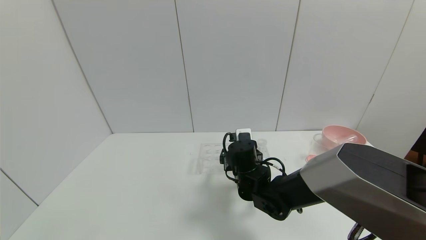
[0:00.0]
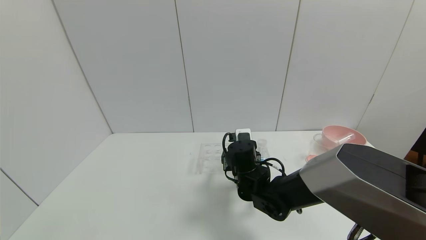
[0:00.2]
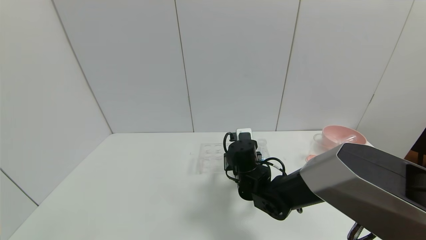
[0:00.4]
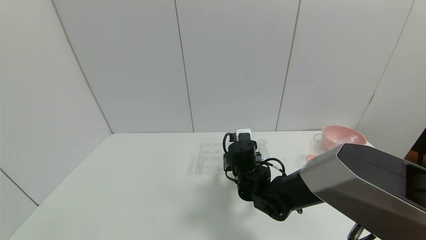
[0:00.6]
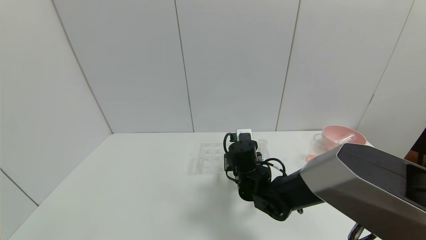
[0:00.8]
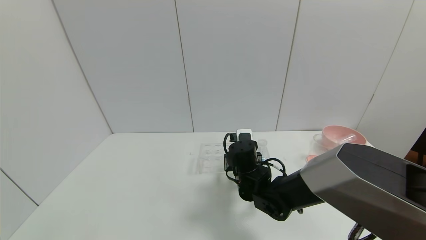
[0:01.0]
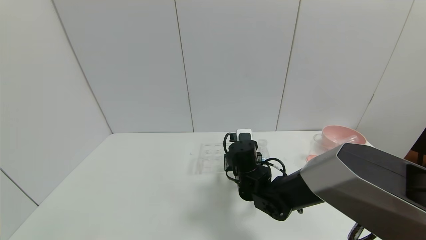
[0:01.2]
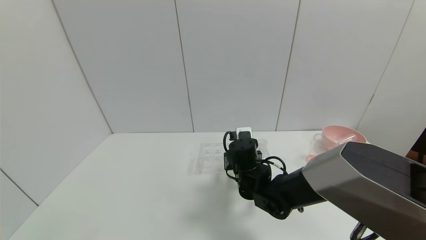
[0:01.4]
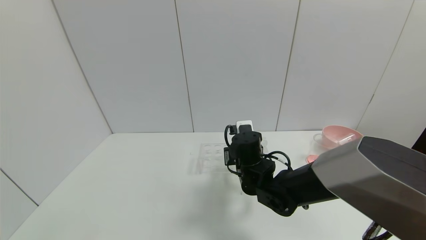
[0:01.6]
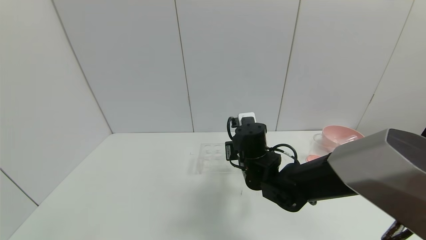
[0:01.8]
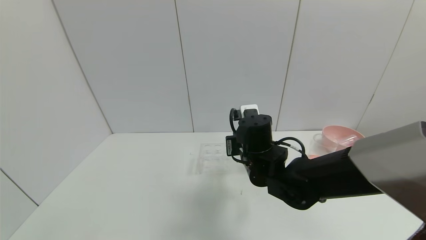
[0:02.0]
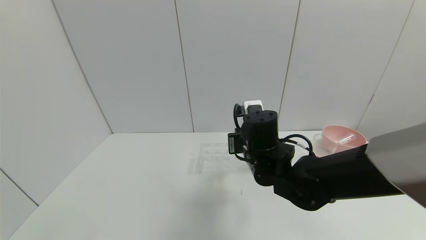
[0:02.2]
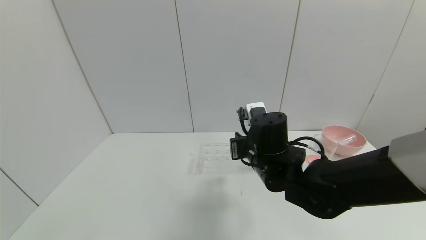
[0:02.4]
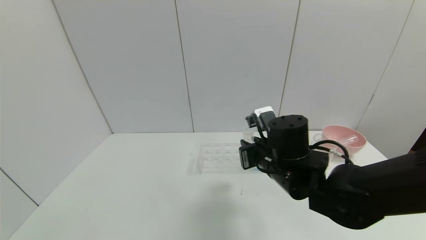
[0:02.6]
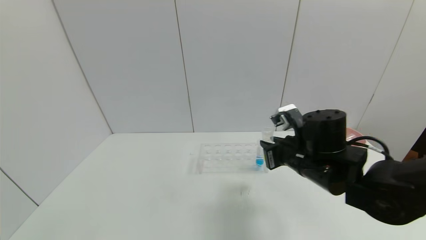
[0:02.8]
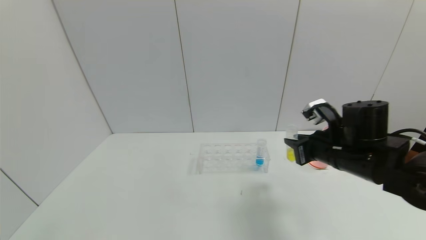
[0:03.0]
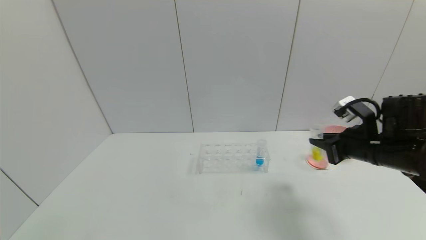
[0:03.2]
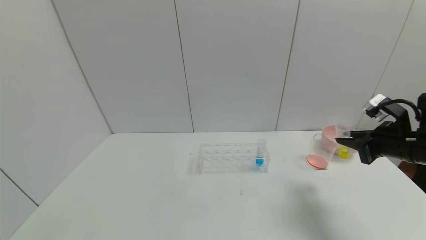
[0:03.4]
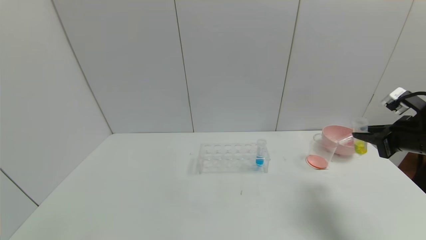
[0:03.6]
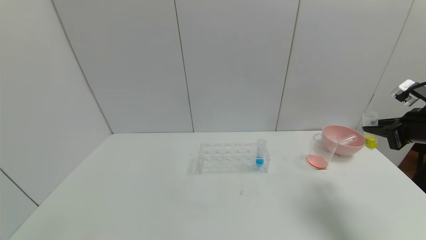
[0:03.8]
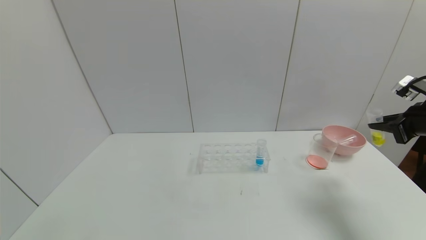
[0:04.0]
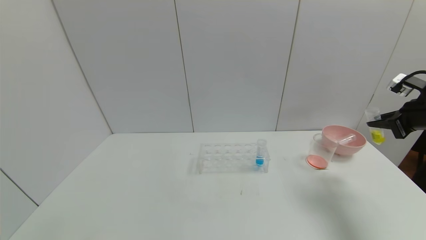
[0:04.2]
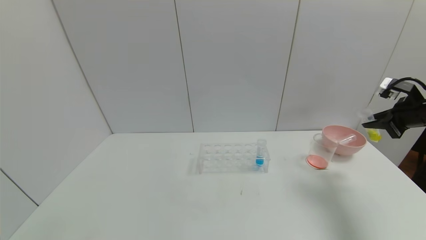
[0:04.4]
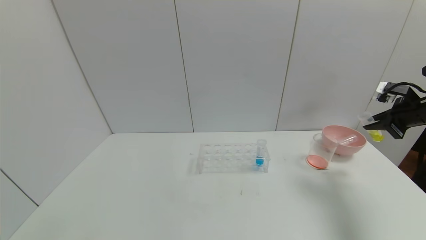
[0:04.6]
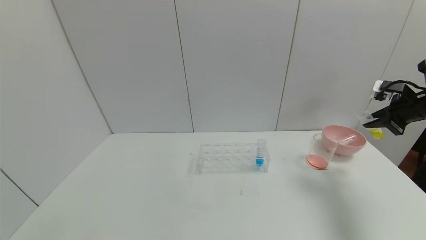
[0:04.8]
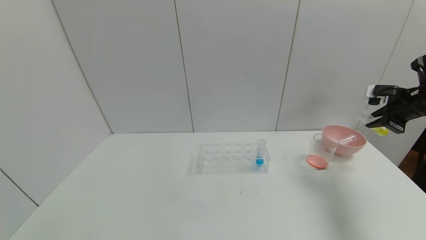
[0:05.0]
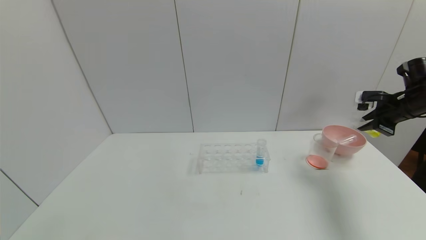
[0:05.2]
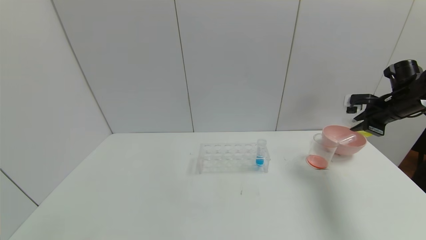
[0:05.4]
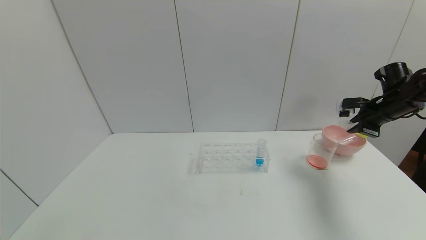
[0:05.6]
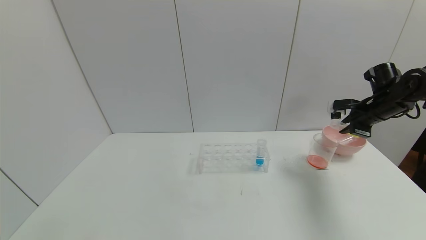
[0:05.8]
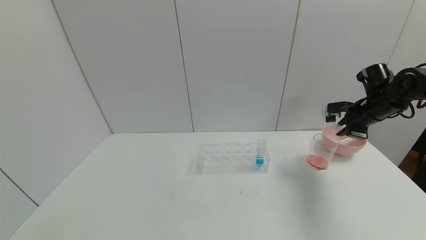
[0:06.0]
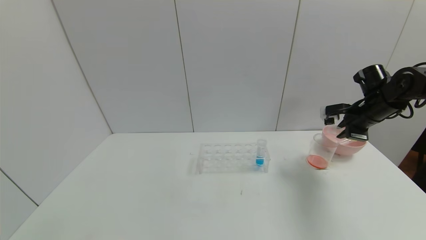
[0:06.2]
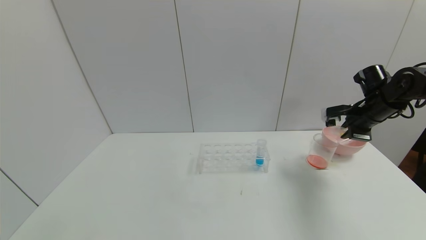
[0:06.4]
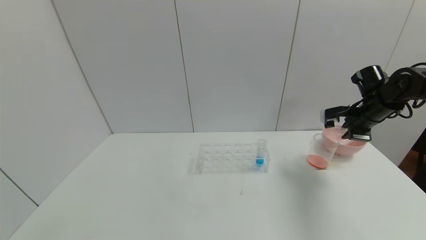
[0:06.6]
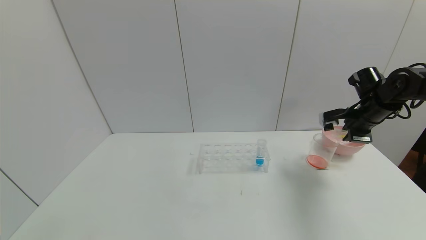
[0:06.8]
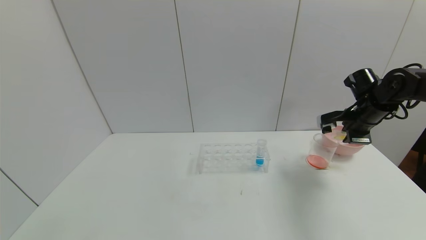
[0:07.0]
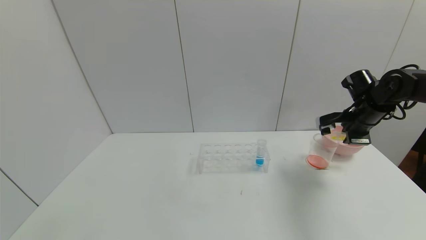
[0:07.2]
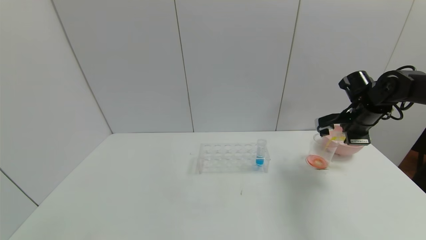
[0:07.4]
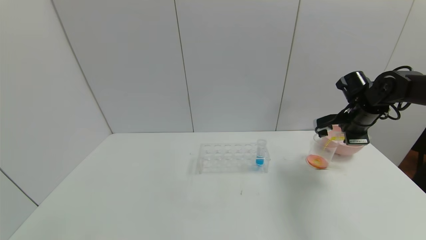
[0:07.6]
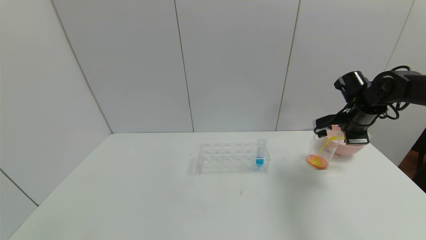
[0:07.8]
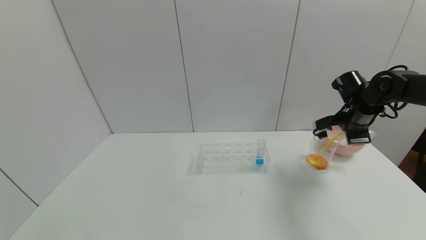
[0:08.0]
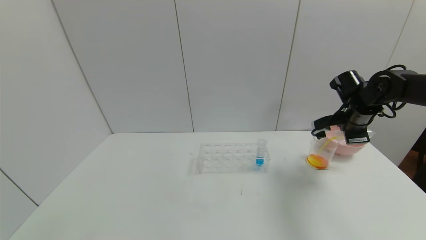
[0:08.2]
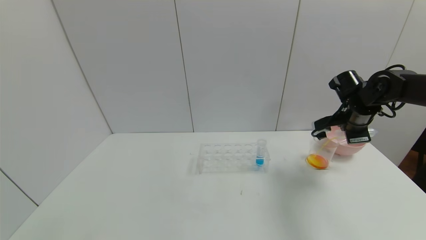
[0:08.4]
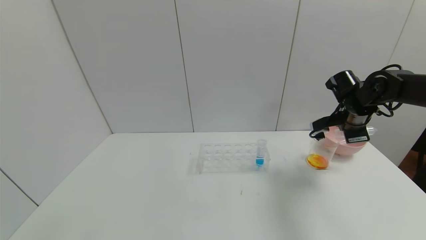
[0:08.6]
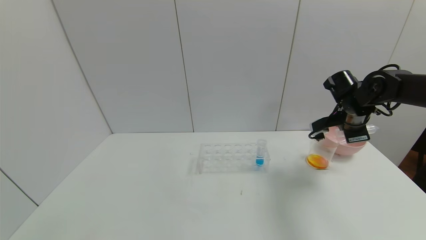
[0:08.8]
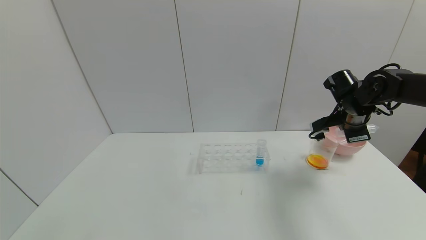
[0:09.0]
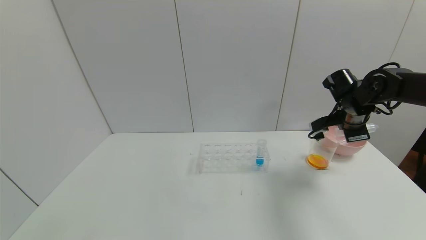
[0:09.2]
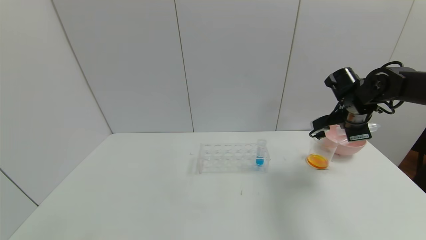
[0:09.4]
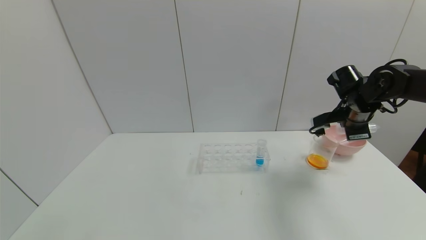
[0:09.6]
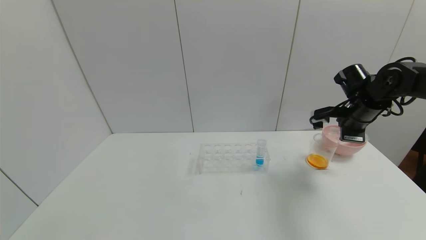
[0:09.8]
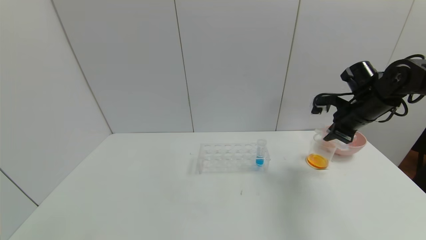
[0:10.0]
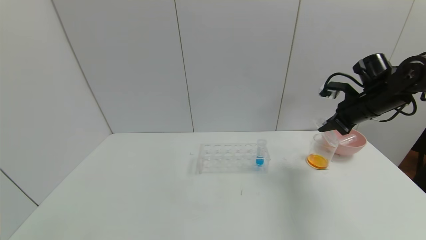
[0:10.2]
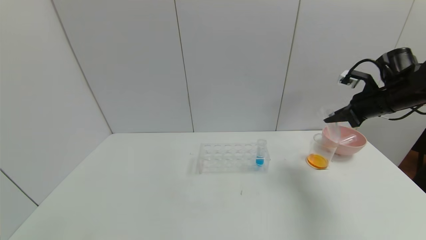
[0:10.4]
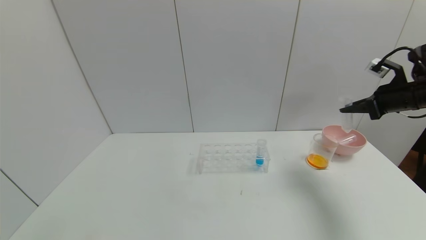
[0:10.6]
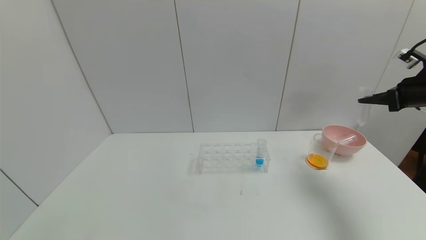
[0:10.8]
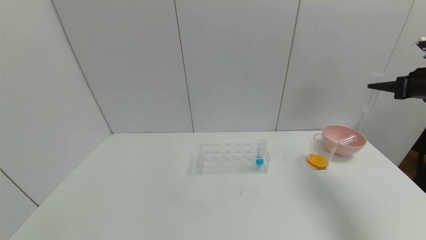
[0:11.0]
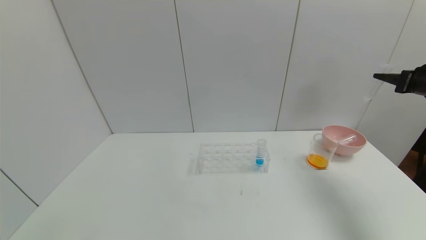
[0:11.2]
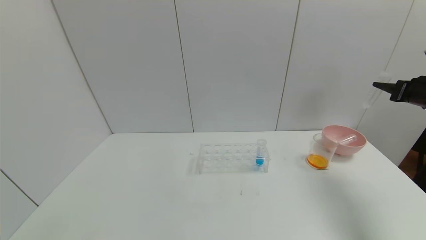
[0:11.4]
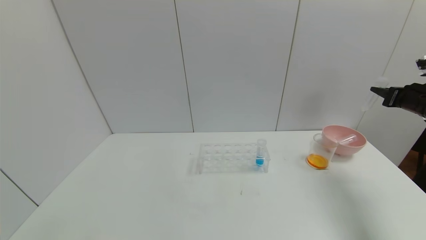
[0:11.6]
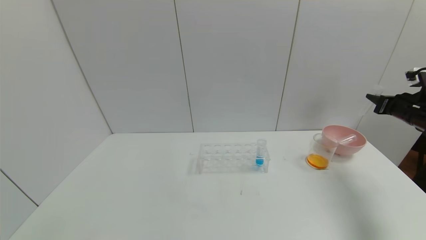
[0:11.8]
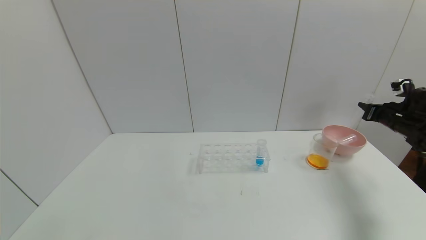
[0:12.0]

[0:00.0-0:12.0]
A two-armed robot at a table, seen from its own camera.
Task of the whole recording: pick up the test tube with yellow pigment and the test tube with red pigment by grippers and pour them into the beaker.
Step, 0:00.8 to 0:08.6: Pour the yellow reagent into the graduated cylinder with the right gripper.
0:00.0 to 0:01.6: The right gripper closes its fingers.
0:01.6 to 0:03.0: The right gripper moves to the right and upward, roughly 20 cm.
0:03.0 to 0:04.4: The right gripper shifts some 20 cm to the right.
0:04.4 to 0:06.0: The right gripper heads forward and to the left, covering approximately 10 cm.
0:07.6 to 0:09.0: The grippers stay close to where they were, moving slightly.
0:09.0 to 0:10.4: The right gripper travels to the right by some 5 cm.
0:10.4 to 0:12.0: The right gripper moves to the right and downward, about 15 cm.

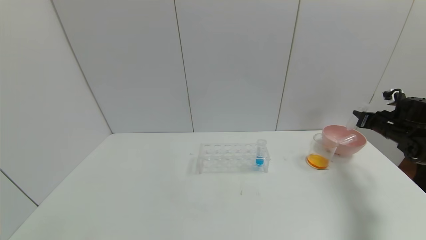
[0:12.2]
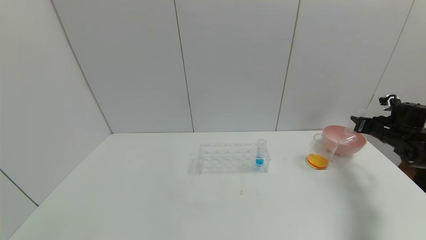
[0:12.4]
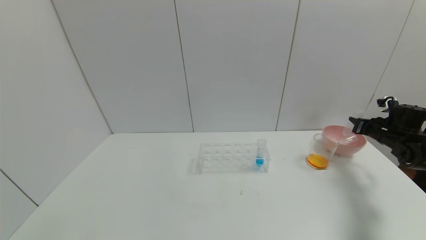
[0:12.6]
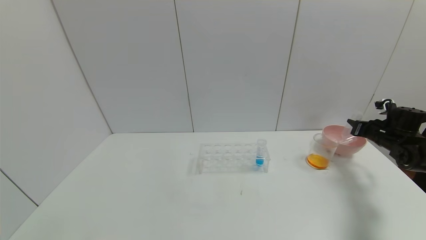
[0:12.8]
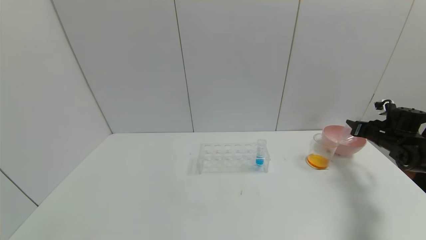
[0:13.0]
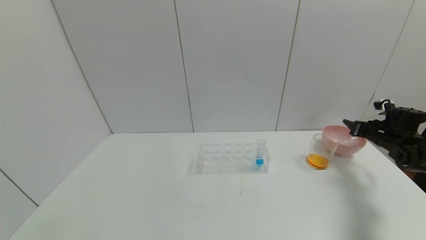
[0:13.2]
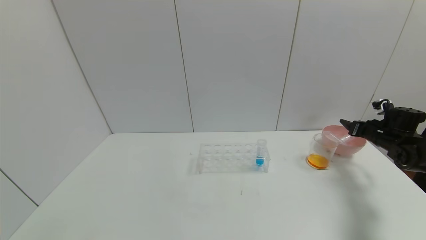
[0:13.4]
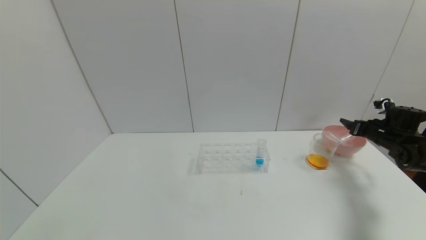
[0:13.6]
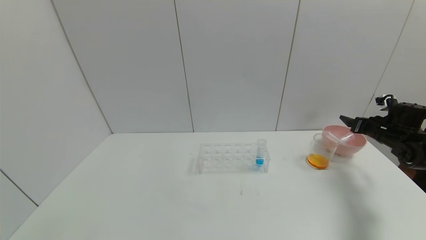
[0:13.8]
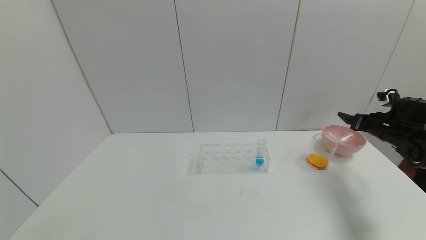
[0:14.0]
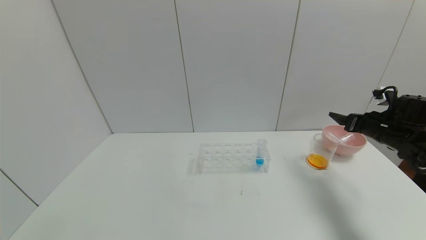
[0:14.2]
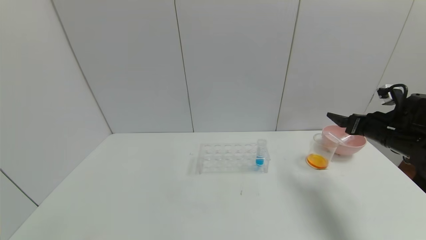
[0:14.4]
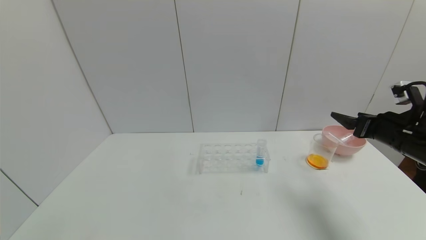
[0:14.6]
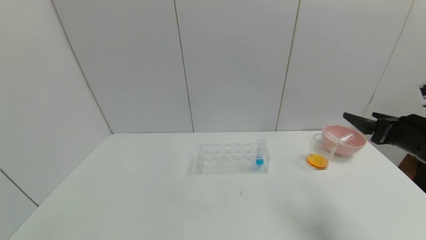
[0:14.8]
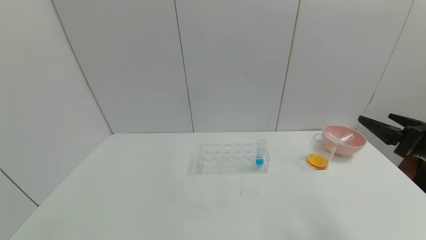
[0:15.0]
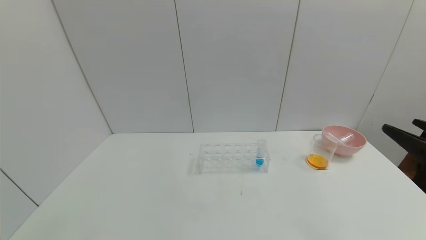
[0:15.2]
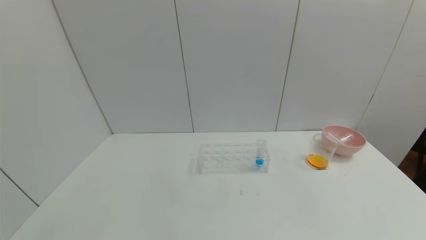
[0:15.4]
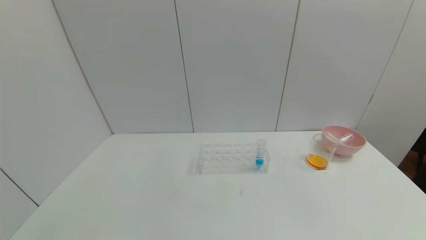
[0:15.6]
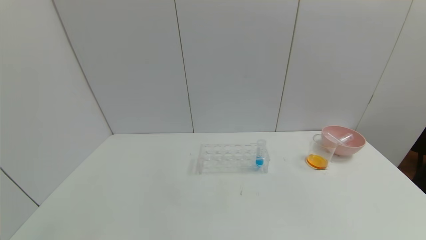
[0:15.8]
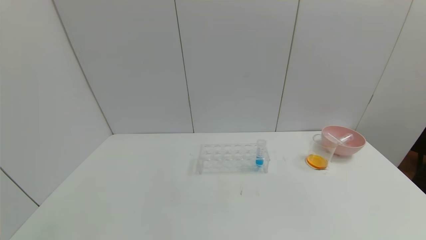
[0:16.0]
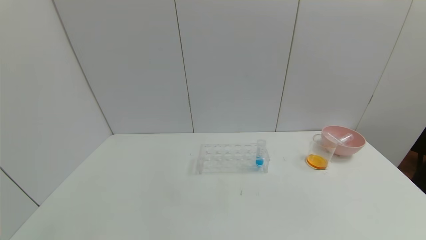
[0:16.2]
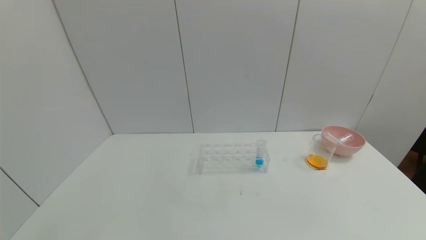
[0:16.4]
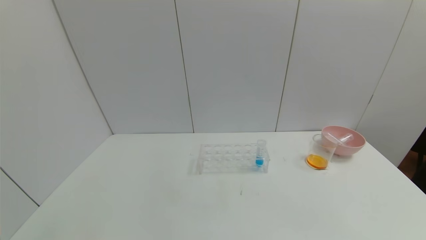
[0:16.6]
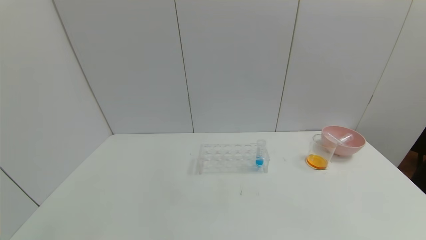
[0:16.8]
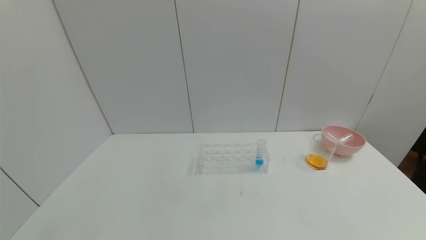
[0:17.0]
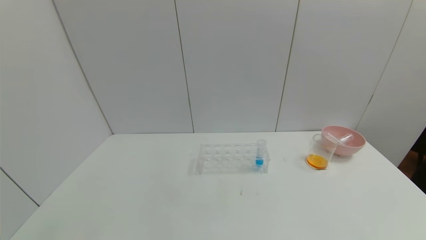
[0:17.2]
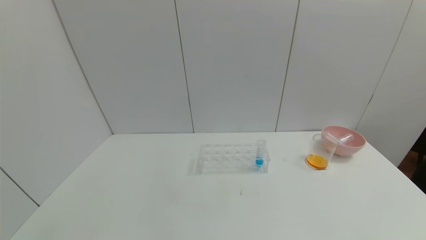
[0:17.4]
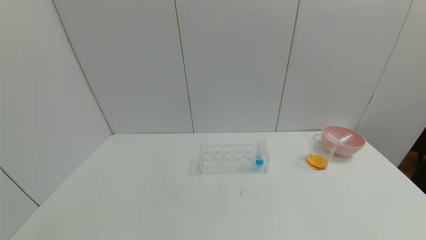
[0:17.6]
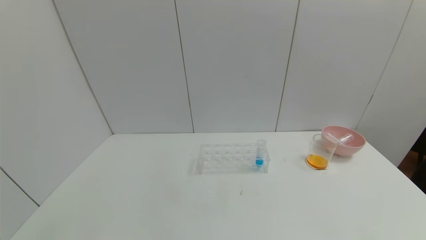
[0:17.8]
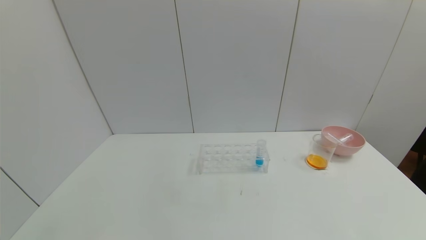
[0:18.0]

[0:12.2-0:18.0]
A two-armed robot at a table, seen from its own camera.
Task of the whole recording: pick up the test tube with yellow pigment and the test tube with red pigment by grippers and pour them into the beaker.
0:12.2 to 0:13.6: The right gripper opens.
0:13.6 to 0:15.0: The right gripper moves backward, to the left and upward, roughly 30 cm.
0:15.0 to 0:16.6: The right gripper moves backward, about 25 cm.
